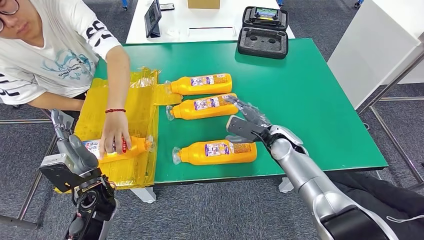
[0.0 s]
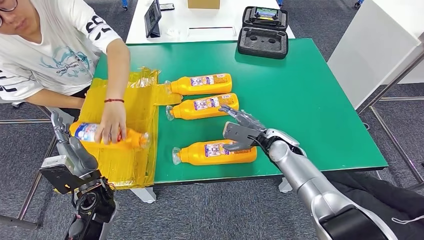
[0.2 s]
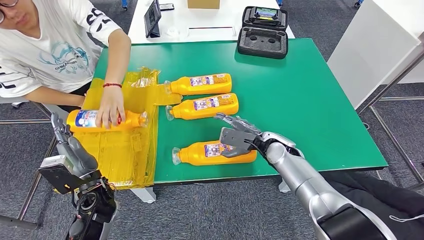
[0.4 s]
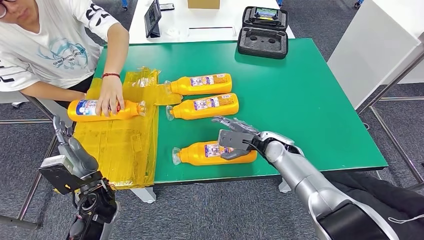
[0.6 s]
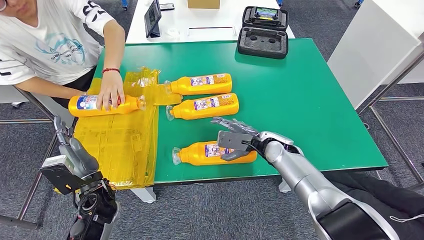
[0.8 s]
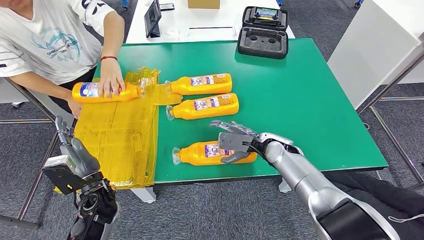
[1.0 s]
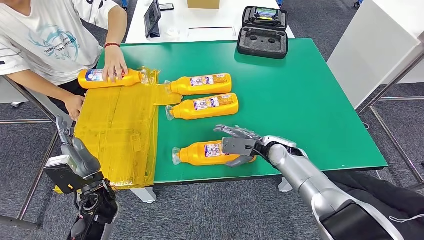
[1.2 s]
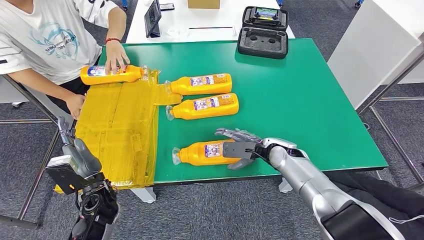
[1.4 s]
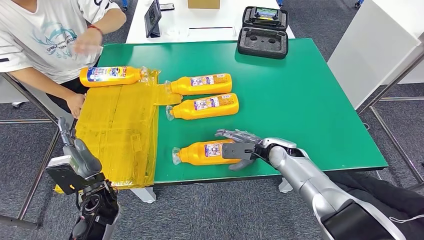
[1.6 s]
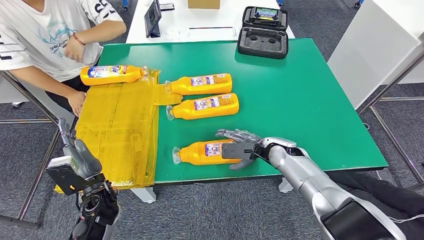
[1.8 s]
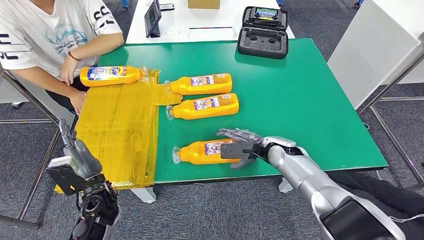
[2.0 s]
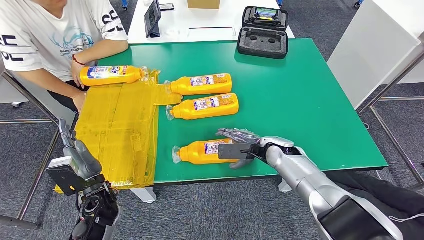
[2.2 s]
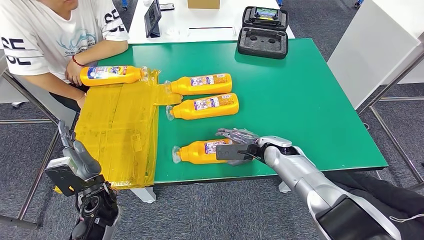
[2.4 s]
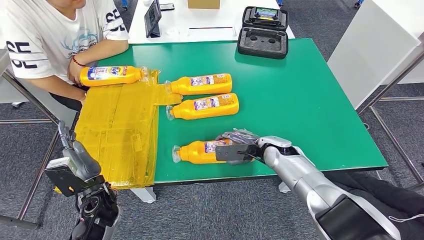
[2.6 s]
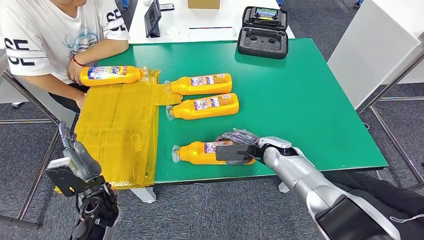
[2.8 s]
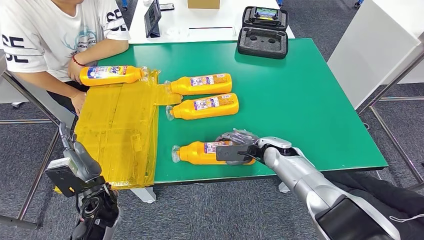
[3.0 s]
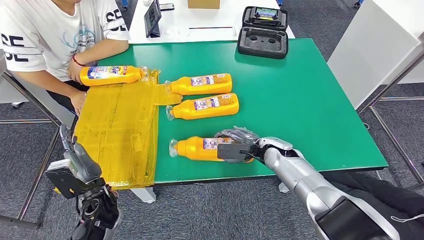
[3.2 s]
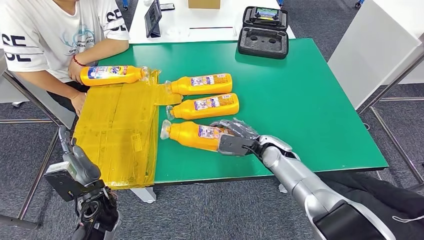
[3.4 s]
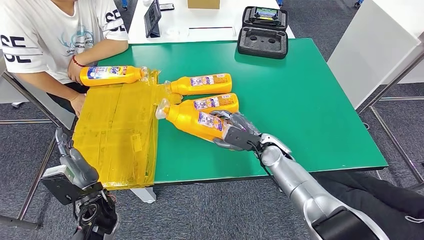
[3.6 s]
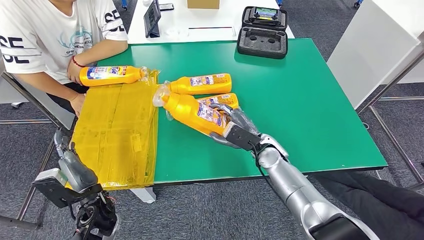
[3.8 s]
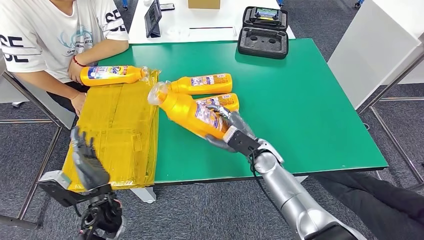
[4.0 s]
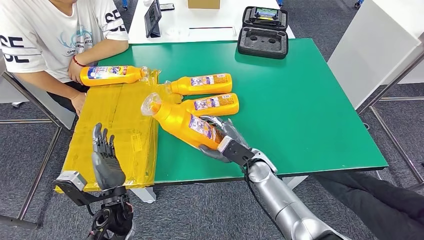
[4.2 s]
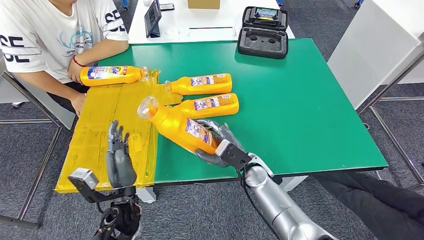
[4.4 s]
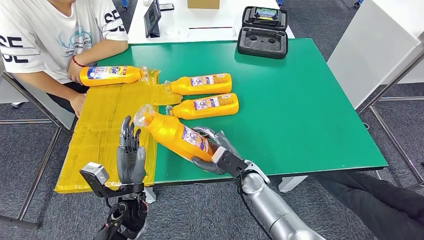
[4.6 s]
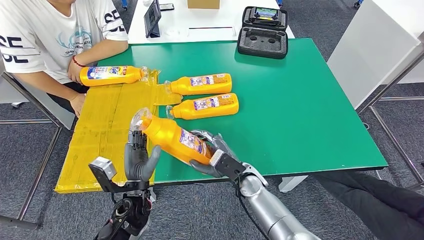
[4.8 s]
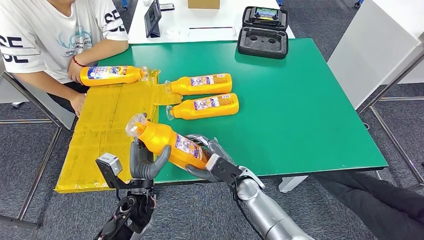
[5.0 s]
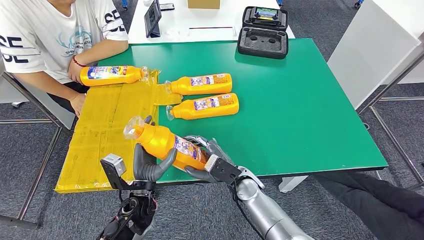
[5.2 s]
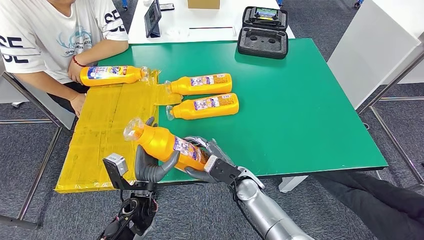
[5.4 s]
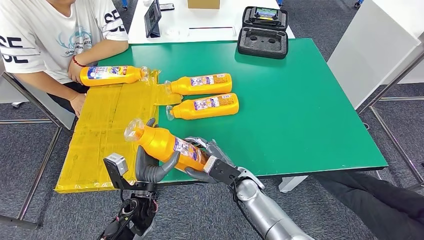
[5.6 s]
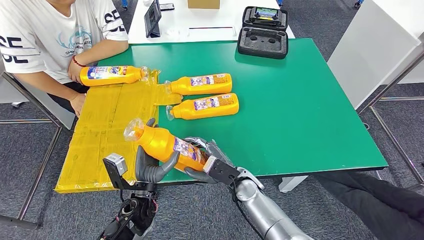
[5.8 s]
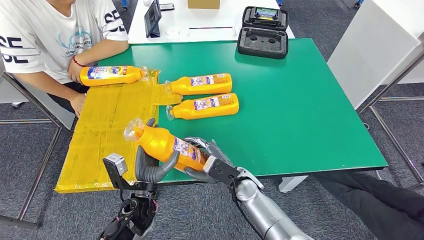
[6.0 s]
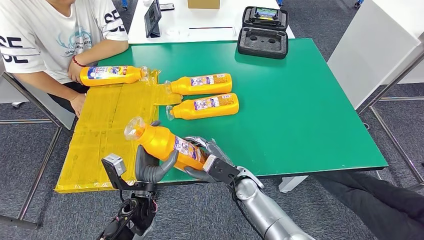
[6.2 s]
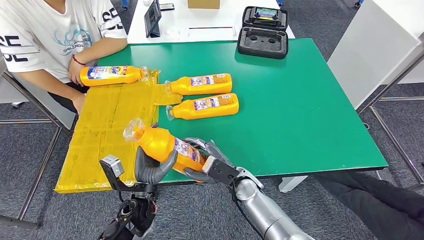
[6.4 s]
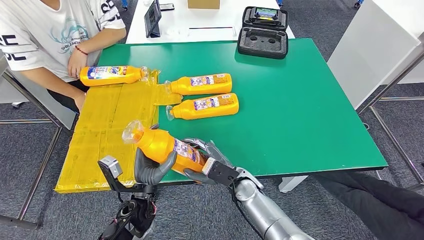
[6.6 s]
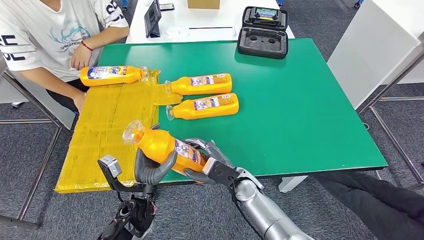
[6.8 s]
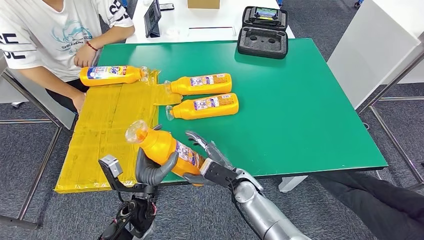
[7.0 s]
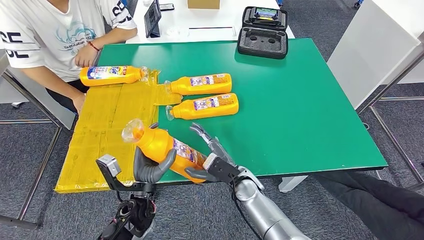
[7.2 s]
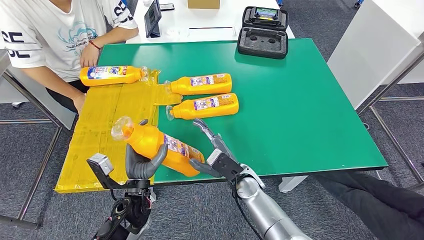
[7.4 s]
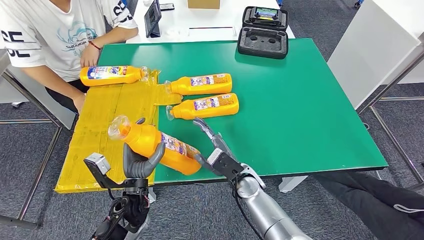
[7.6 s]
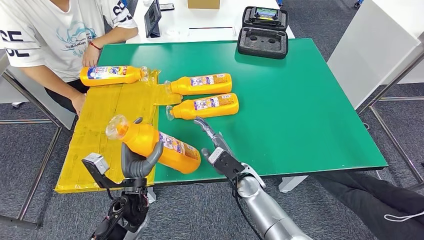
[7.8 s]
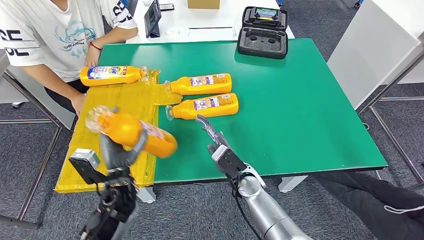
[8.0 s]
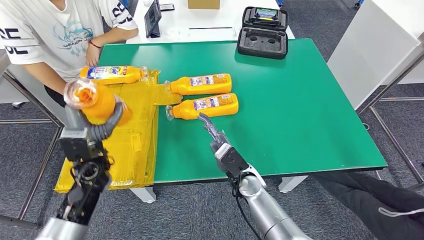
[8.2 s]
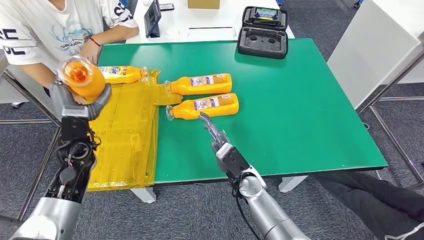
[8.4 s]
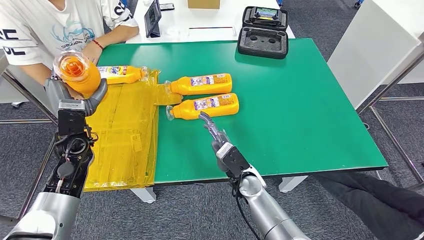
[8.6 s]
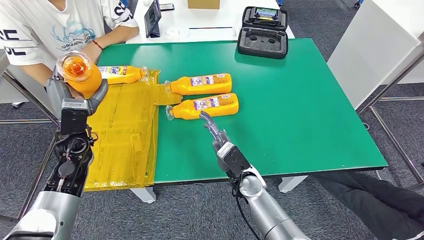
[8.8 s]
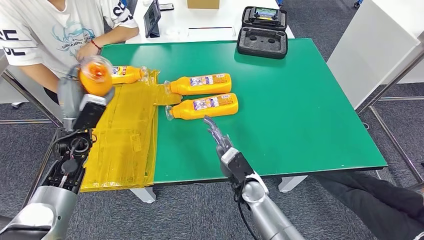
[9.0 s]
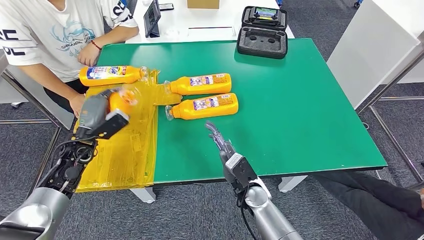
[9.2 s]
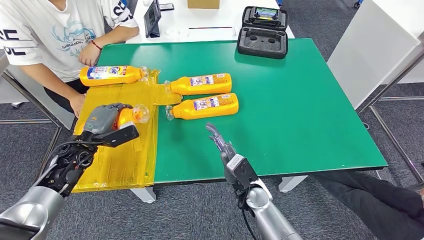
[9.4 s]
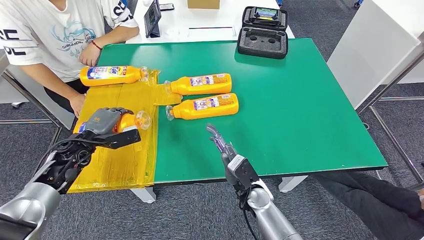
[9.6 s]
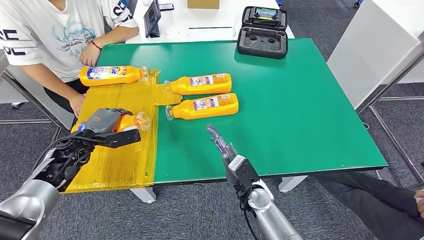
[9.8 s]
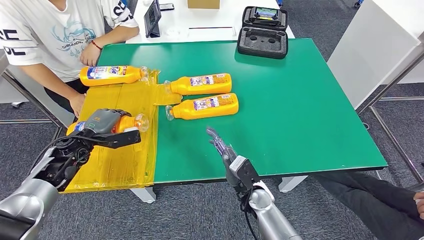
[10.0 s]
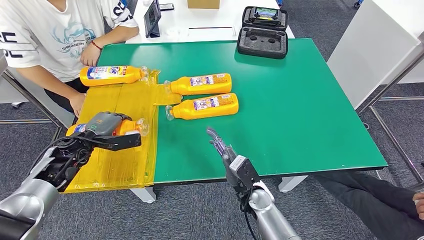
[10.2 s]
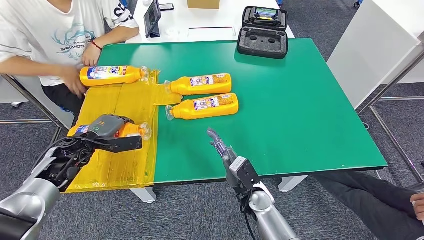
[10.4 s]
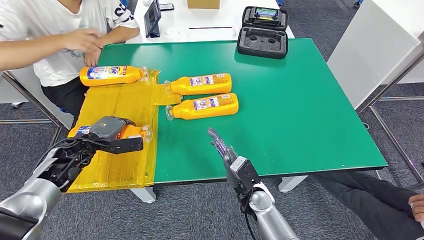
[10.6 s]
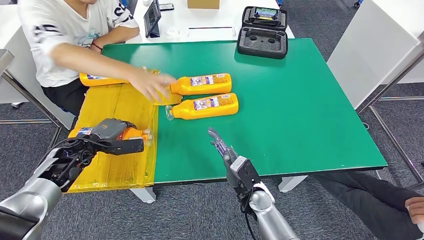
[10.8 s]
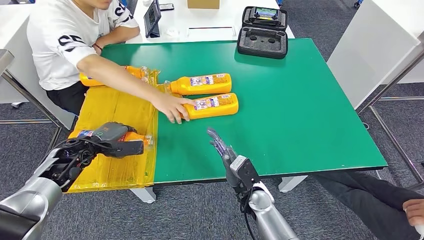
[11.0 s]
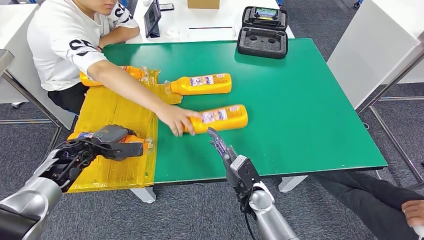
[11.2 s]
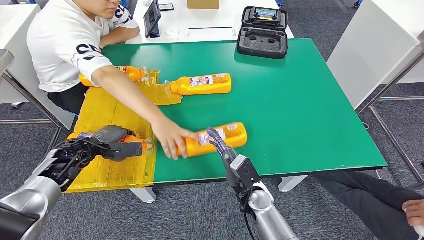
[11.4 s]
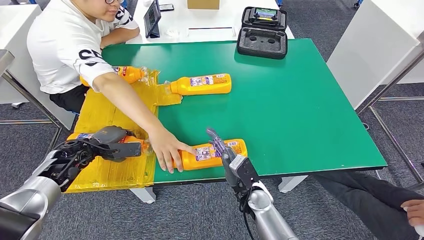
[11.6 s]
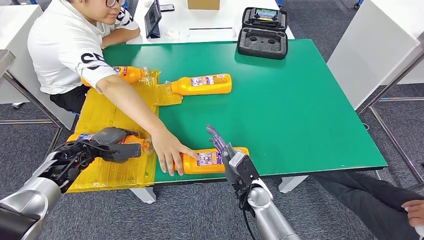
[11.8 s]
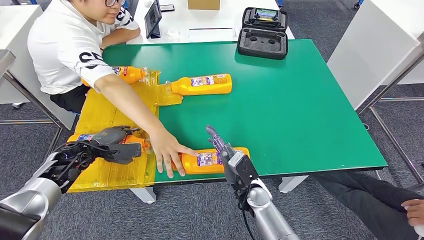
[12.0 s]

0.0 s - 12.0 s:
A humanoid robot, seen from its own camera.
Step, 0.0 s - 5.2 s: Pick up the fast-moving consumer goods bottle from the table.
1.6 s - 3.0 s: There are only small adjustments of the hands.
4.4 s - 6.0 s: The hands stay close to where they were, moving slightly.
6.0 s - 7.6 s: There are only small adjustments of the hands.
7.6 s - 9.0 s: The left hand shifts approximately 25 cm to the left, forward and upward.
9.0 s - 10.4 s: The left hand moves downward, some 5 cm.

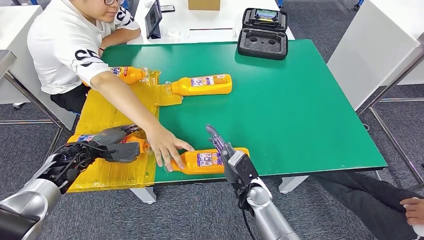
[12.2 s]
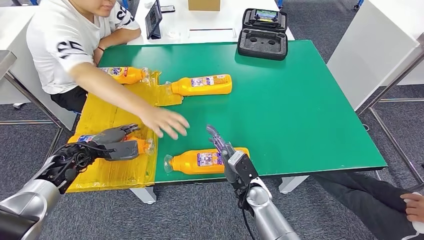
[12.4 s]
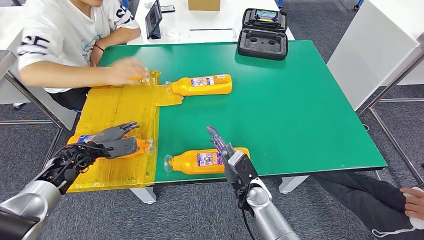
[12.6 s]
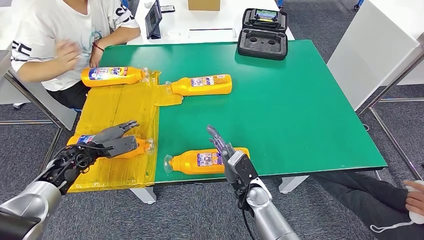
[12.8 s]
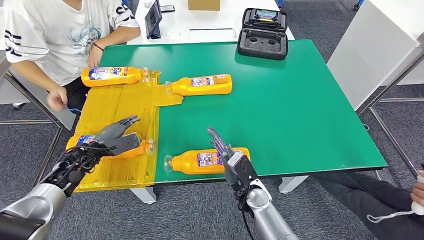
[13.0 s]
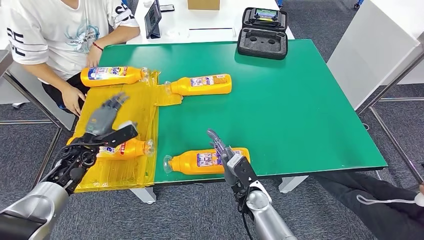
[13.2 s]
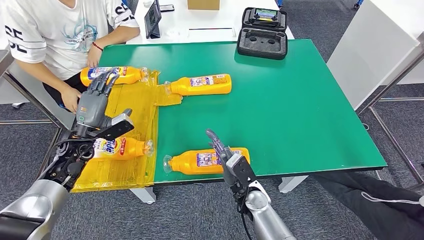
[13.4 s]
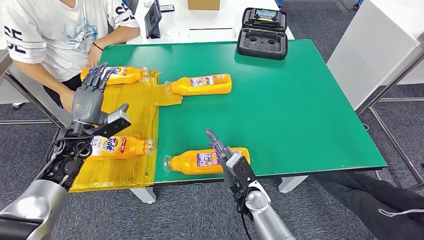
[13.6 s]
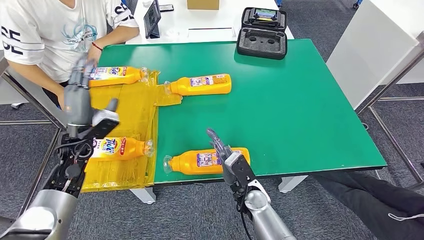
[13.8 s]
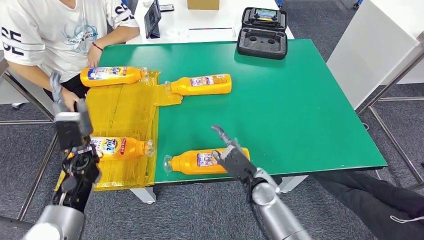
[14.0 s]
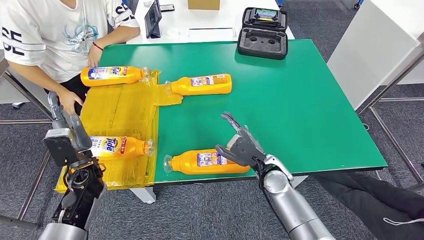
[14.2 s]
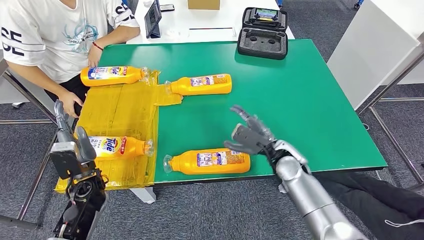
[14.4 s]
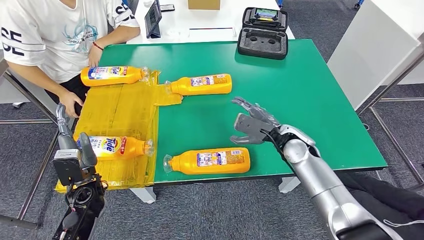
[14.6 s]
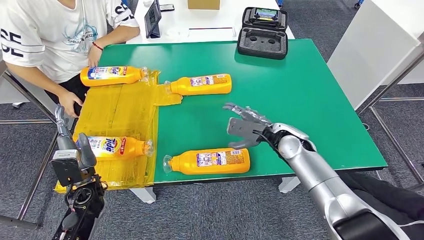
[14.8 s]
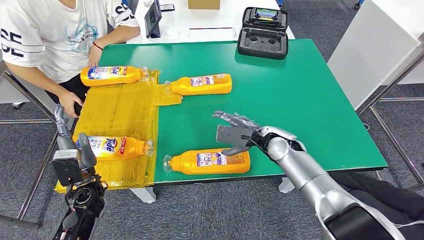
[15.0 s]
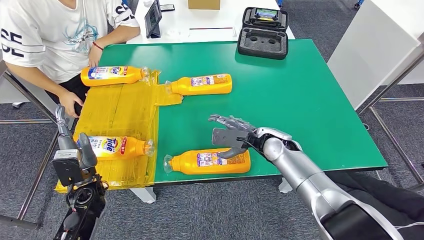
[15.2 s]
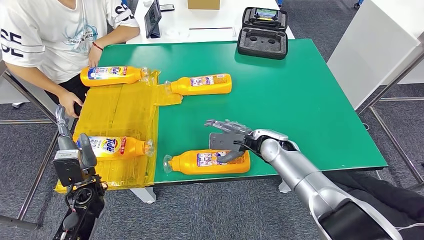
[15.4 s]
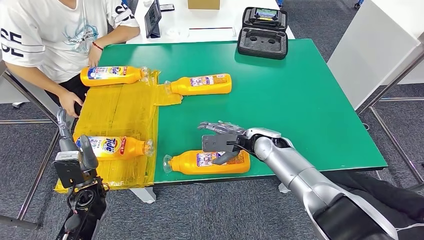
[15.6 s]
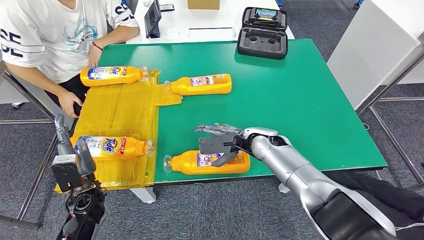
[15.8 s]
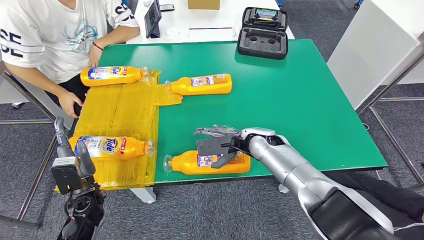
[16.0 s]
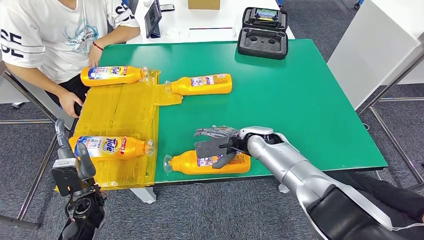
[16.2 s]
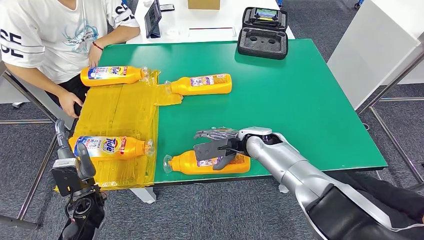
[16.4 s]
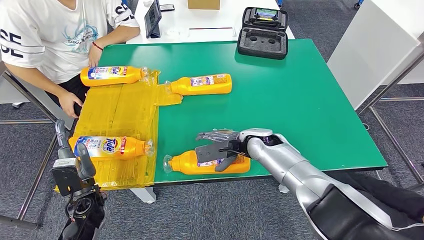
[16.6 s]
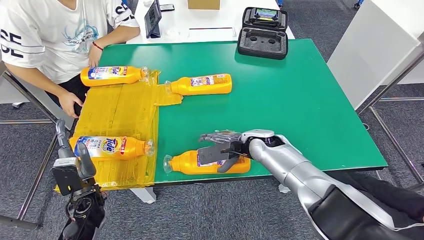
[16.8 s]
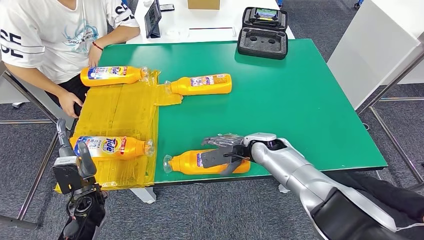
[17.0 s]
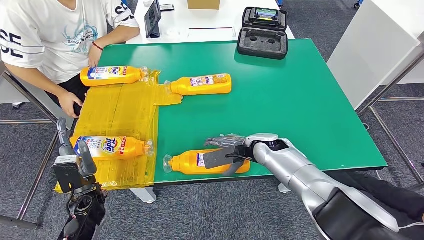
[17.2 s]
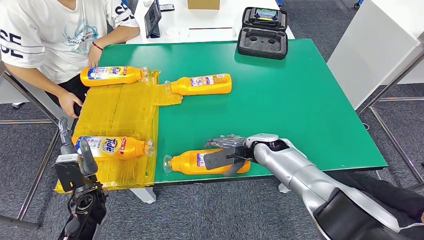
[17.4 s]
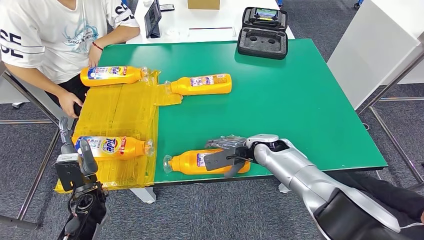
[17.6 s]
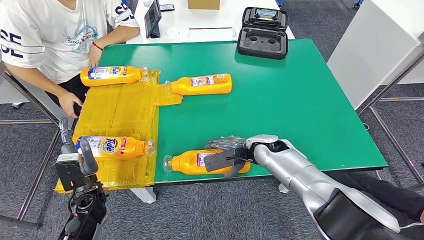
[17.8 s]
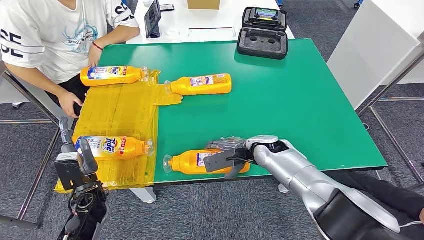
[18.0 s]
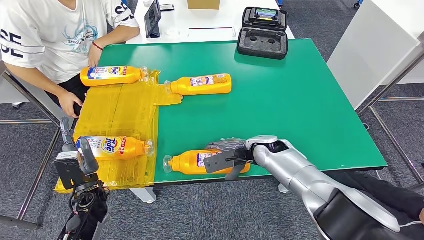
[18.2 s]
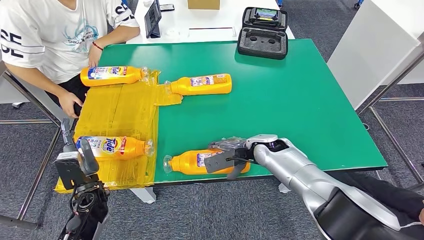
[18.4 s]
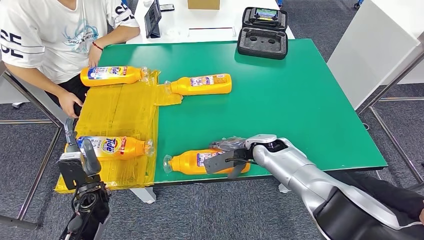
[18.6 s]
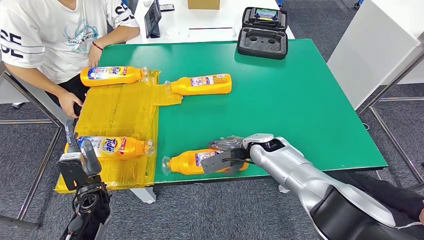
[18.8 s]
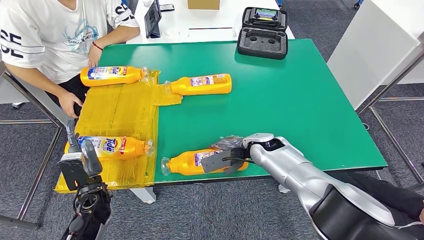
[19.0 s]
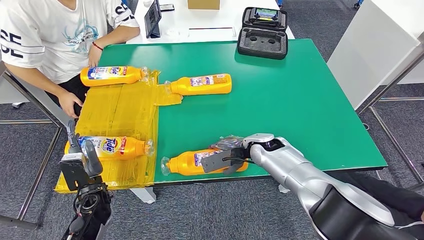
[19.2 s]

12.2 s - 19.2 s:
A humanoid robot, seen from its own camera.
15.0 s - 16.4 s: The right hand heads to the left, covering approximately 5 cm.
16.4 s - 19.2 s: The hands stay close to where they were, moving slightly.
